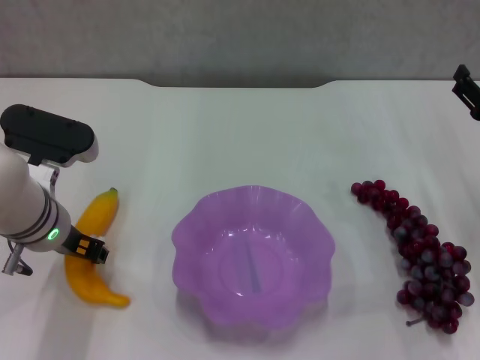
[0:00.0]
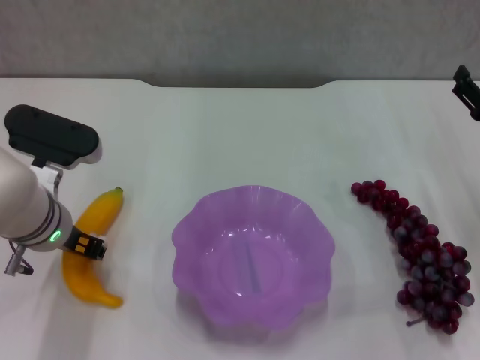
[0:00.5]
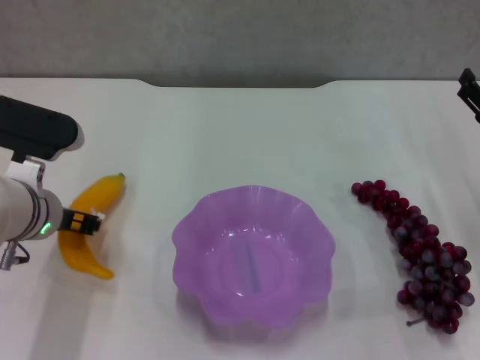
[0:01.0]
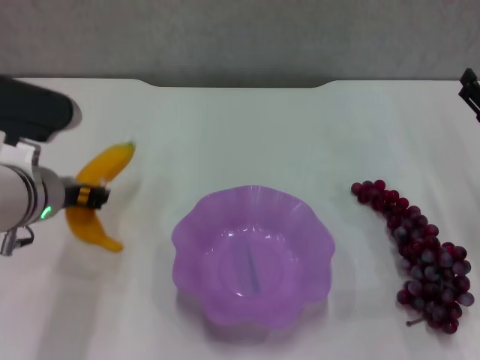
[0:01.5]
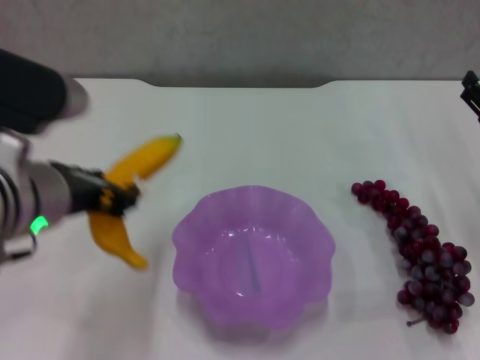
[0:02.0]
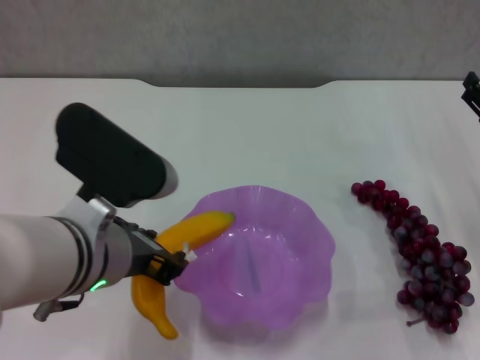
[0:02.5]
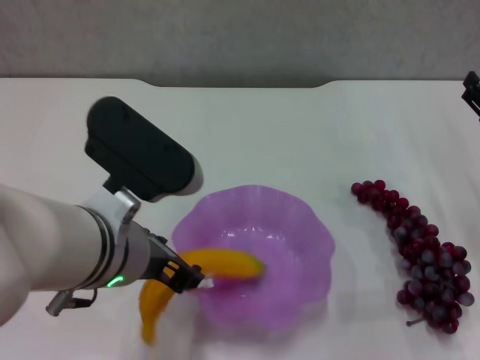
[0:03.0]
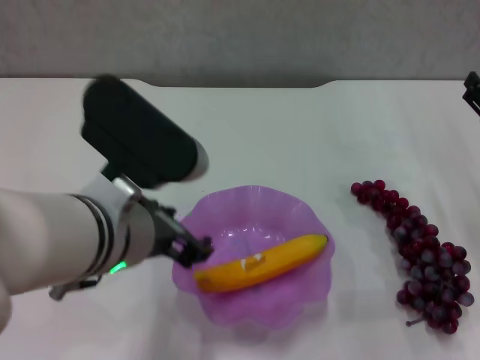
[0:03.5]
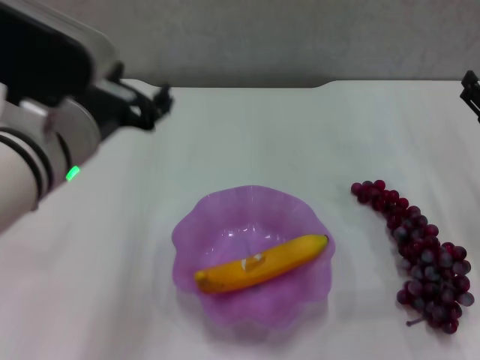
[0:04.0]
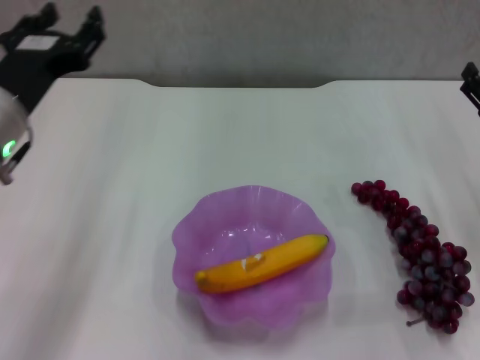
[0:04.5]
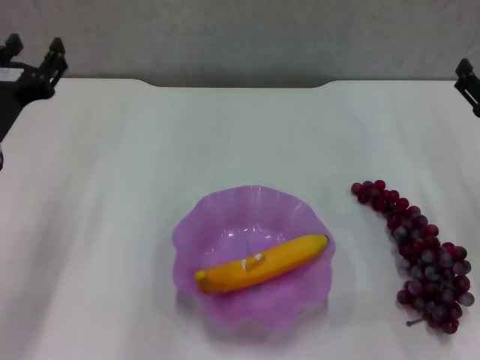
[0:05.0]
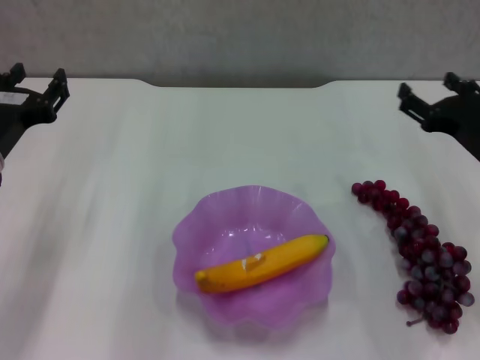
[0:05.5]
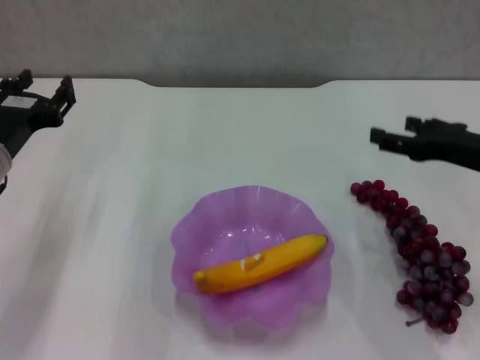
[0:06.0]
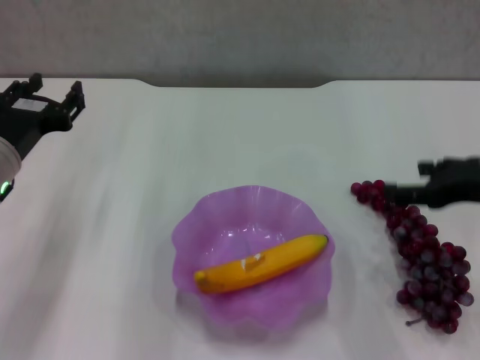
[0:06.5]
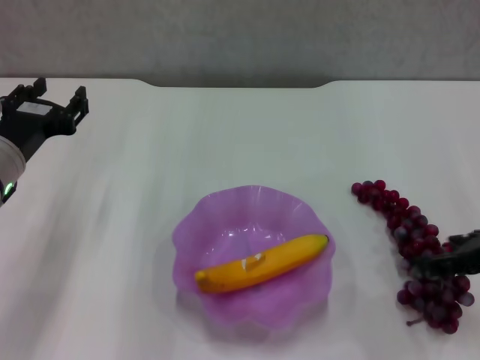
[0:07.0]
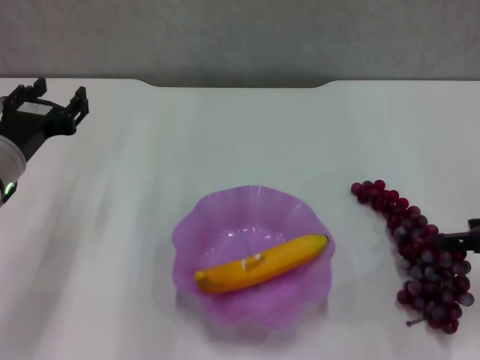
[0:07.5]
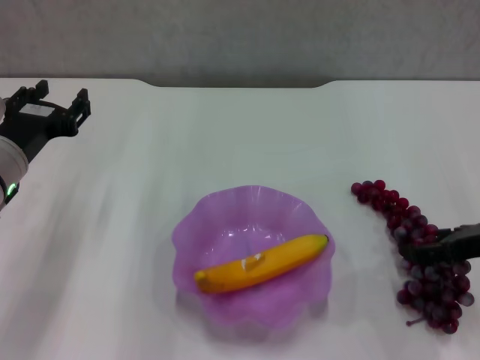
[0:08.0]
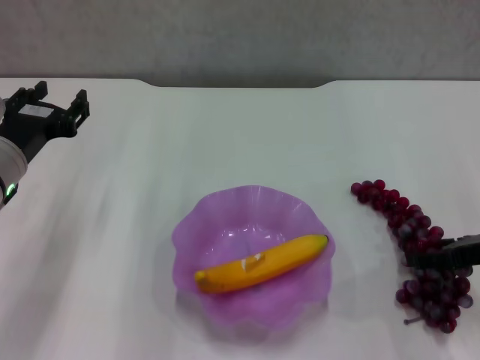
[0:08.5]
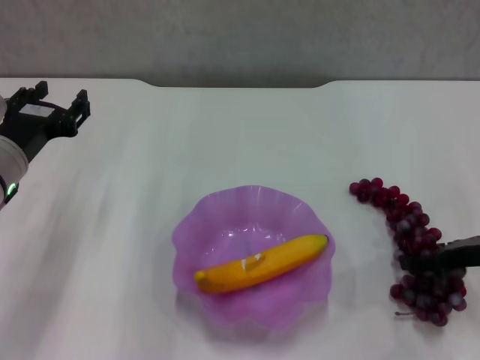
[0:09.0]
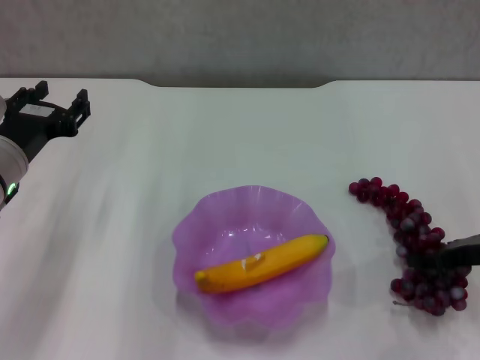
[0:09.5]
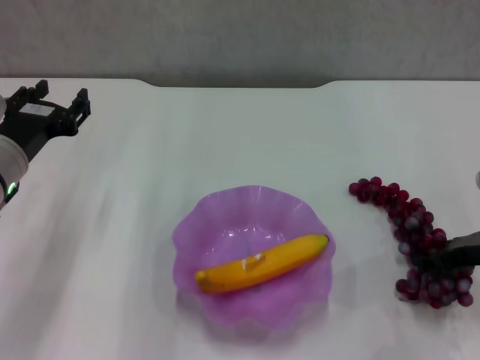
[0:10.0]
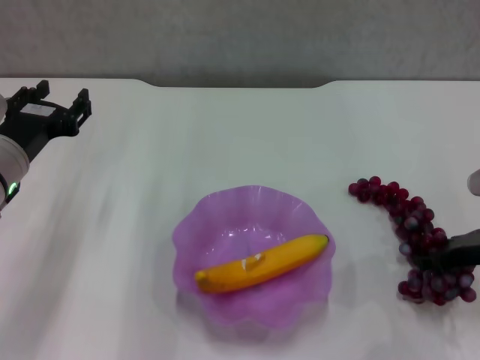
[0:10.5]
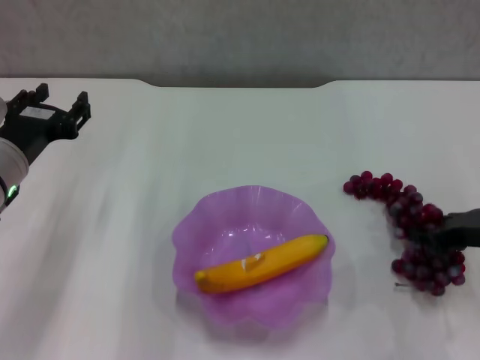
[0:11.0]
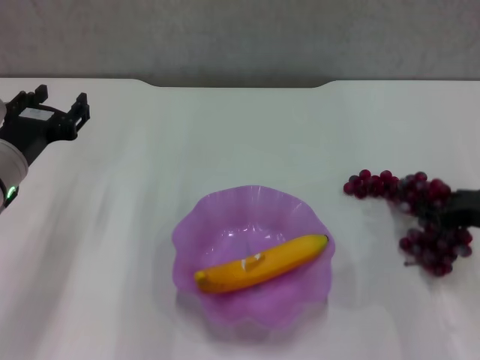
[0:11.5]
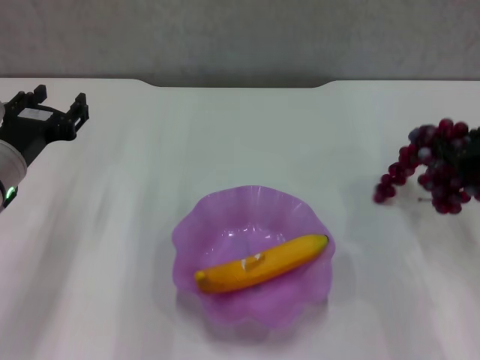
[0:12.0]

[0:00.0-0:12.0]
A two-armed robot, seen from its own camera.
Step, 0:00.5 to 0:03.5: Place the banana in the purple plate with left gripper.
Step, 0:04.0 to 0:09.0: Grasp the grape with right gripper.
0:00.0 to 0:02.0: The left gripper goes approximately 10 cm upward and backward.
0:04.0 to 0:06.0: The right gripper shifts by roughly 5 cm, while the left gripper heads to the left, downward and forward, covering approximately 15 cm.
0:06.0 to 0:08.0: The right gripper moves about 5 cm.
0:08.0 to 0:10.0: The right gripper closes.
0:10.0 to 0:12.0: The right gripper heads upward, covering roughly 5 cm.

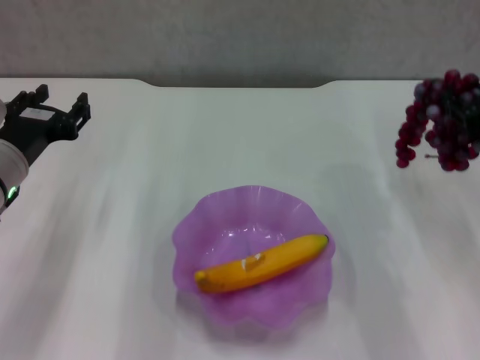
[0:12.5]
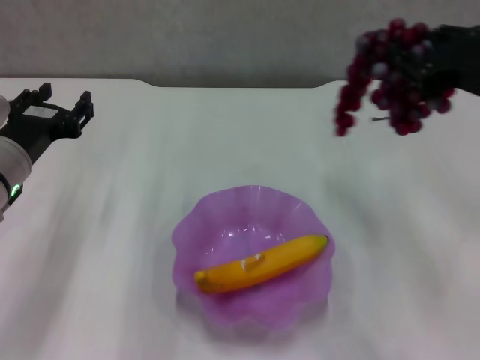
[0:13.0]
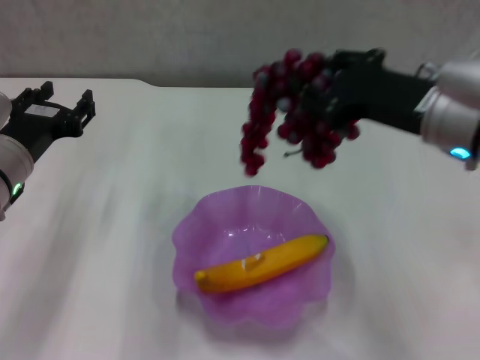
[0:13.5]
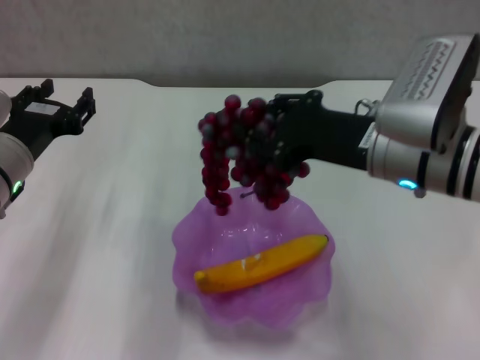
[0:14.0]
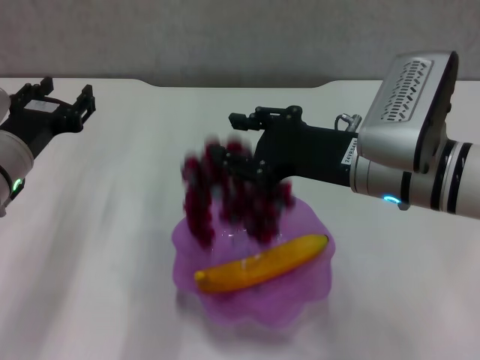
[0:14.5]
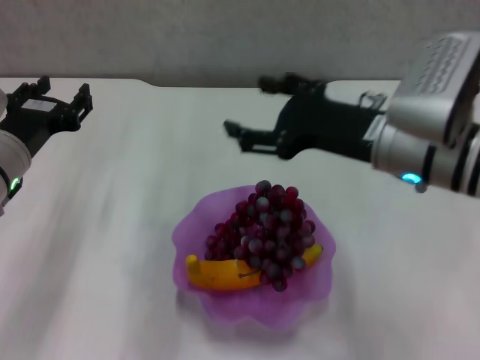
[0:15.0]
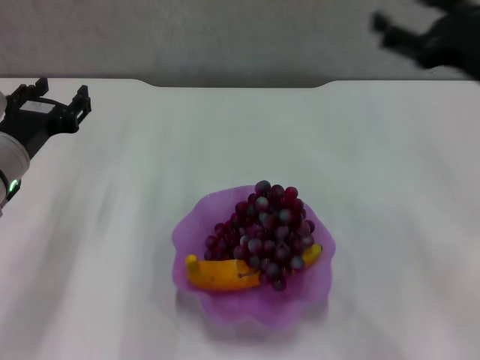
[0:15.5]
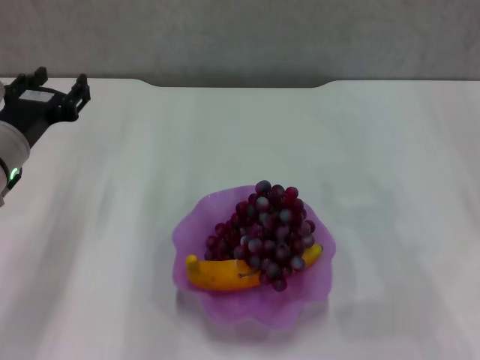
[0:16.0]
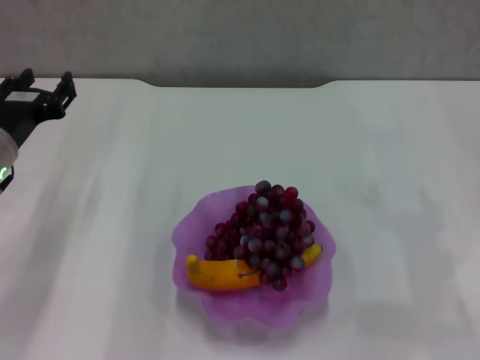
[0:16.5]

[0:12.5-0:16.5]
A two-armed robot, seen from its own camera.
Step, 0:12.5 to 0:14.5: Place the grape in the purple plate with right gripper.
0:12.5 to 0:14.5: The right gripper goes about 15 cm to the left.
0:14.5 to 0:16.5: The right gripper is displaced to the right by roughly 20 cm, and opens its fingers.

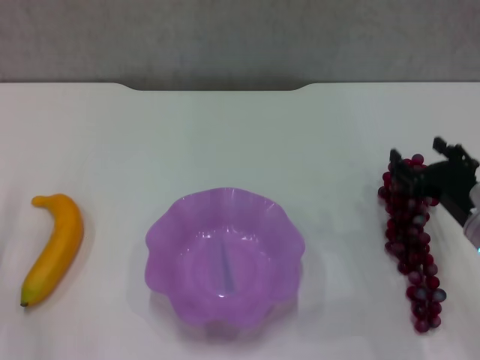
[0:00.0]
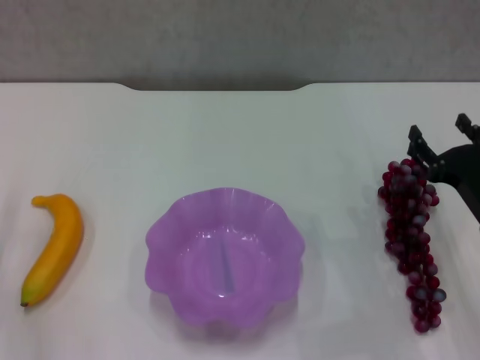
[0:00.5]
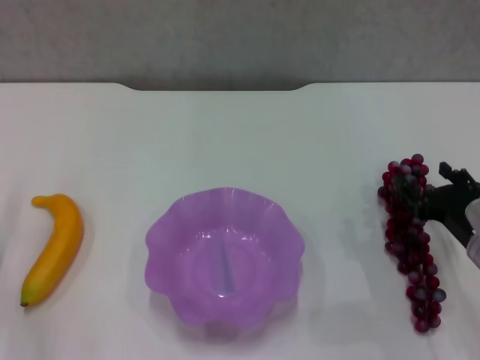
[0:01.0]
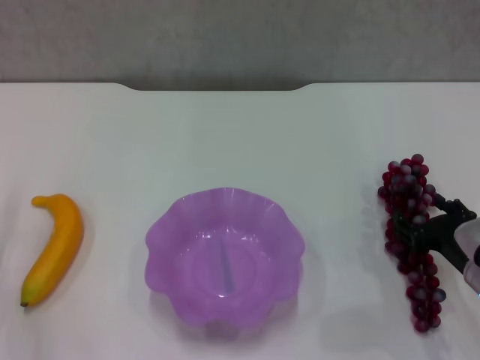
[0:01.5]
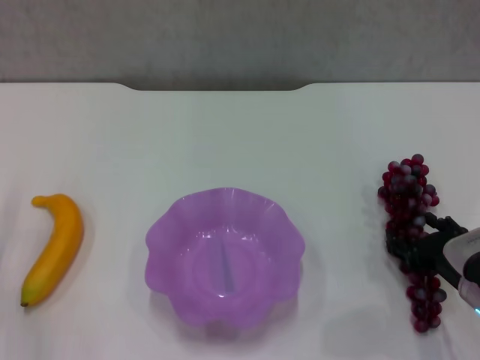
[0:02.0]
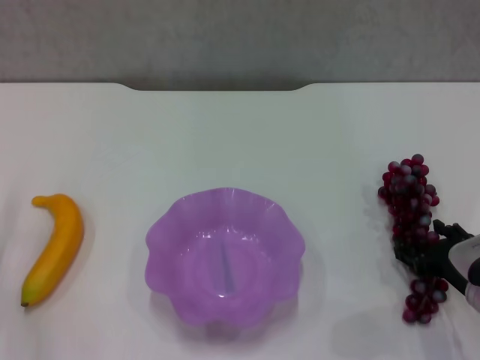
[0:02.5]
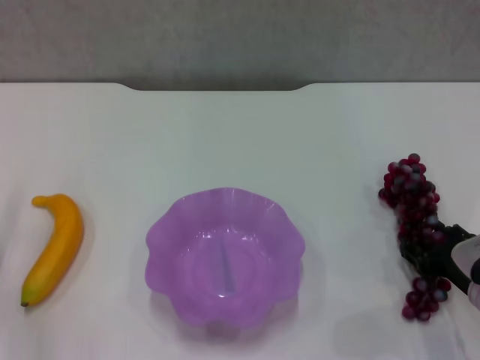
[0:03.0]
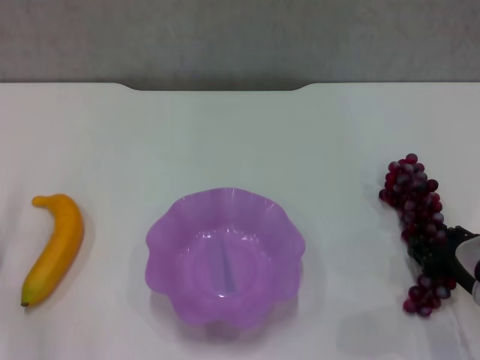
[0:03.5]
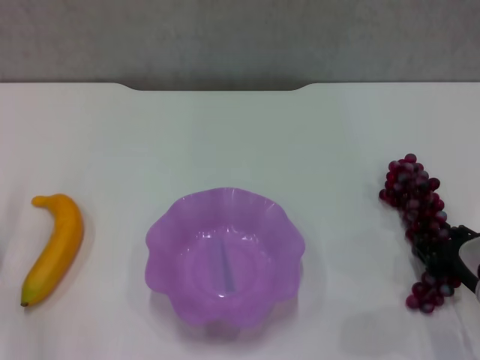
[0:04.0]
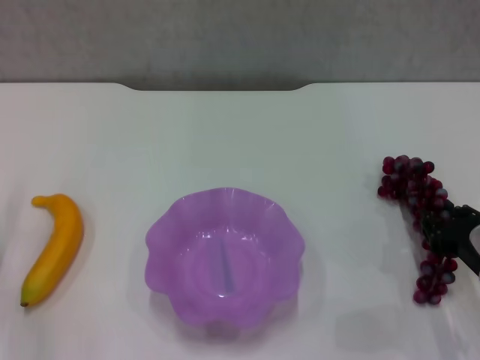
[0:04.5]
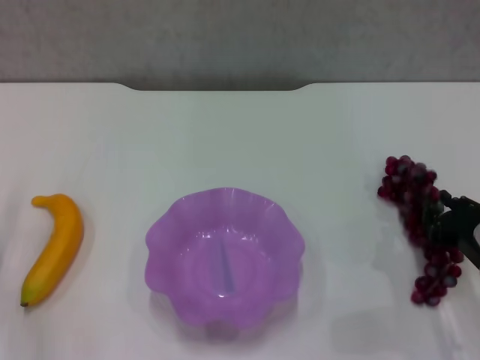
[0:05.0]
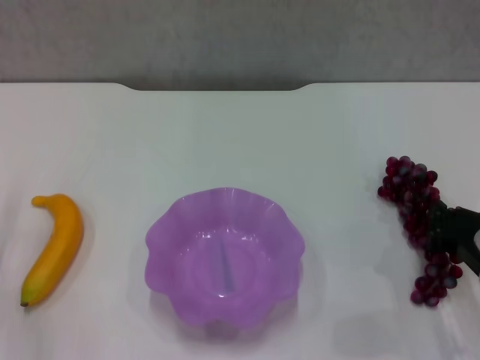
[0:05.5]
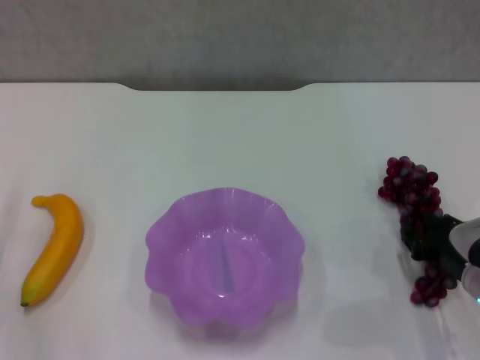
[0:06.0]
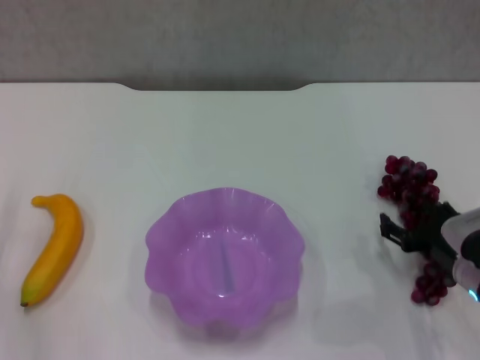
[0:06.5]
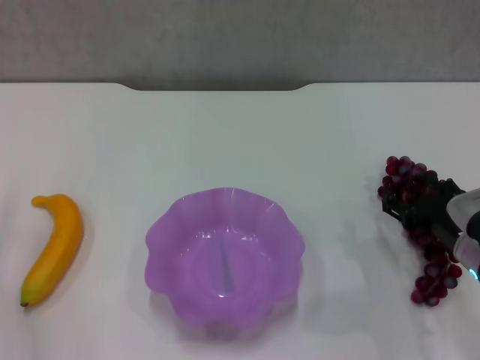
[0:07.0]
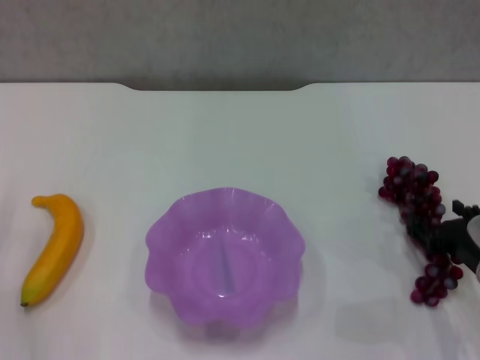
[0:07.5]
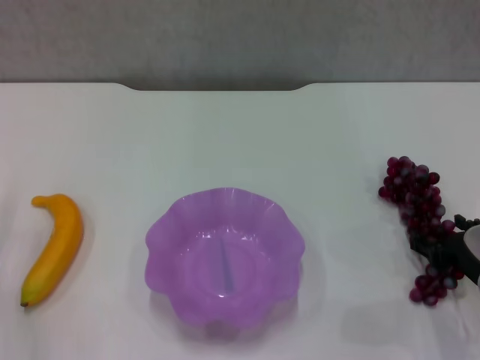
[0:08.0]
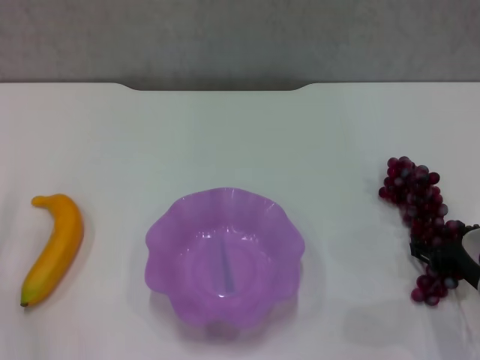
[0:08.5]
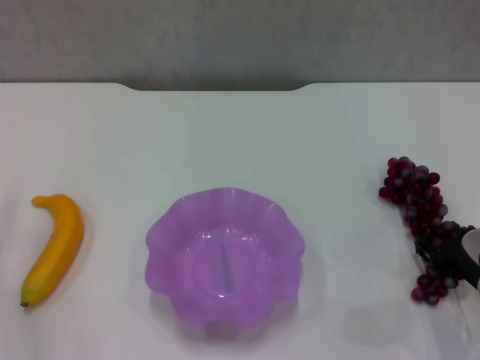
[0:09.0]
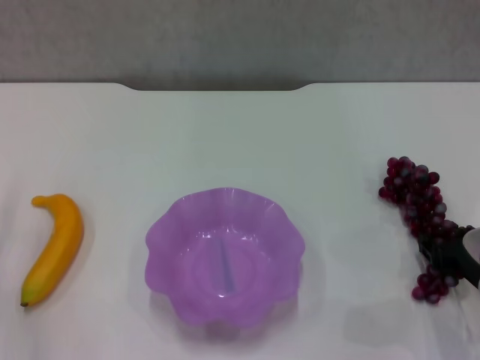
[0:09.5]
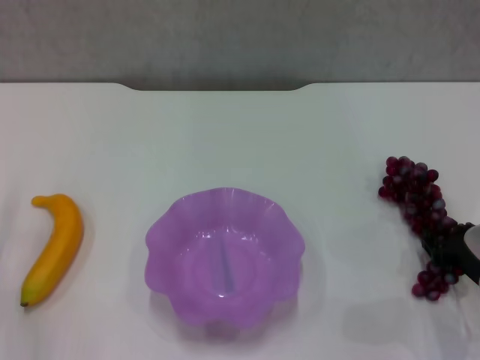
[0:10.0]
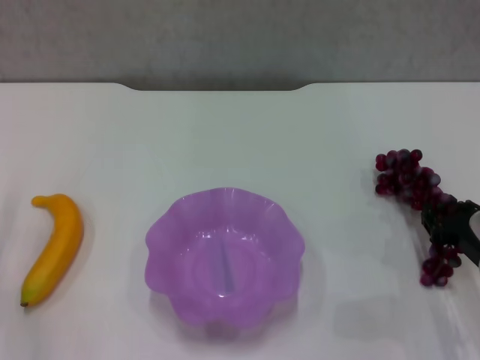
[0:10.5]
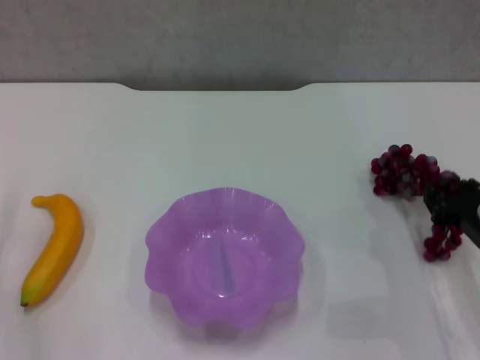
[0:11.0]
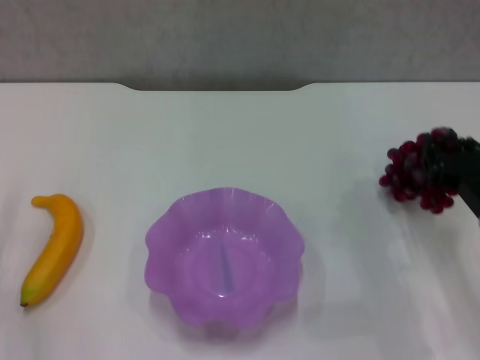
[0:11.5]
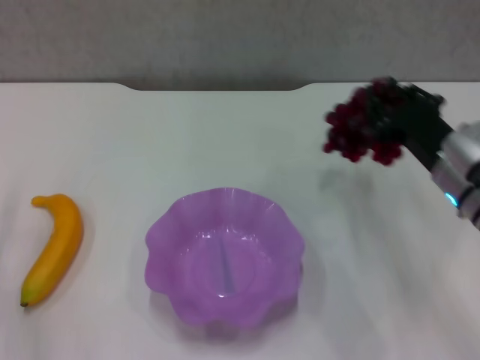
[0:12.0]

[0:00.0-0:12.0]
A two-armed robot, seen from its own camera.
Step, 0:00.0 to 0:09.5: Grasp the grape with right gripper.
0:00.0 to 0:02.0: The right gripper shifts by about 5 cm.
0:02.0 to 0:04.0: The grippers move only a little.
0:04.0 to 0:06.0: The right gripper closes, then reopens.
0:06.0 to 0:08.0: The right gripper opens up.
0:08.0 to 0:10.0: The right gripper closes up.
0:10.0 to 0:12.0: The right gripper goes roughly 15 cm upward, forward and to the left.
